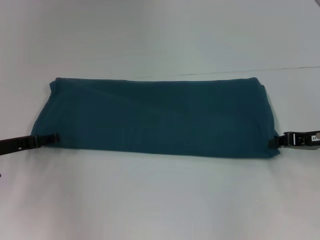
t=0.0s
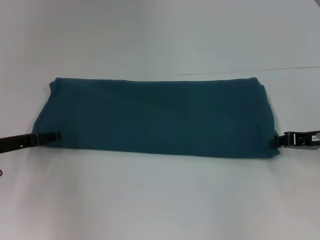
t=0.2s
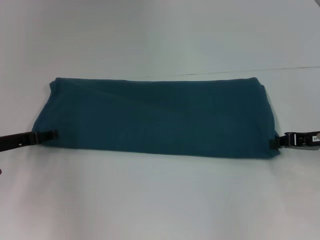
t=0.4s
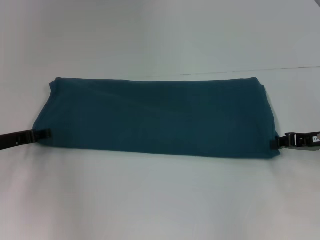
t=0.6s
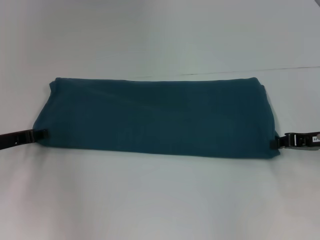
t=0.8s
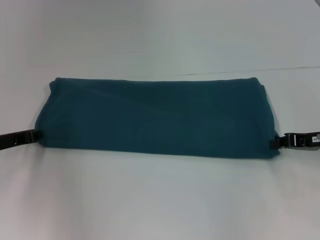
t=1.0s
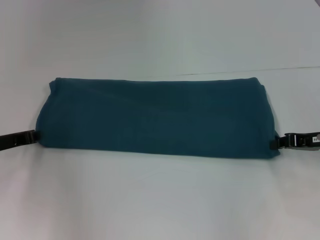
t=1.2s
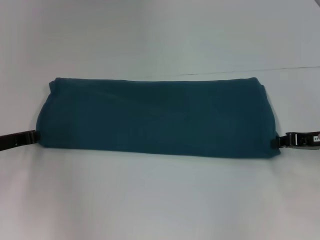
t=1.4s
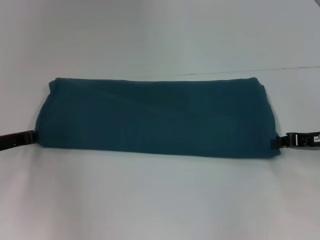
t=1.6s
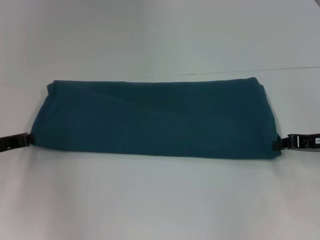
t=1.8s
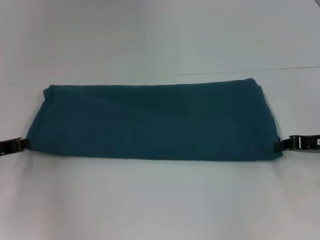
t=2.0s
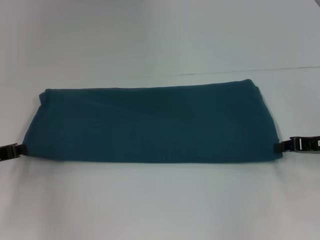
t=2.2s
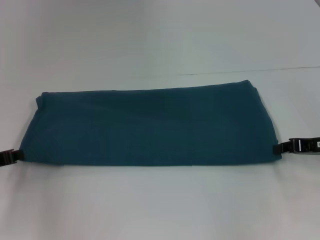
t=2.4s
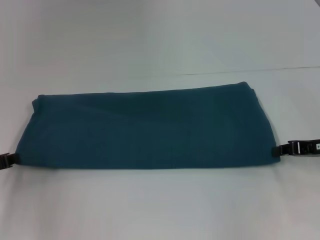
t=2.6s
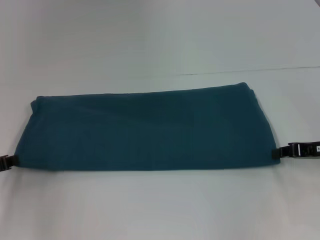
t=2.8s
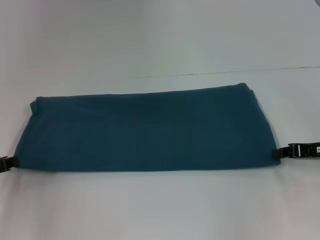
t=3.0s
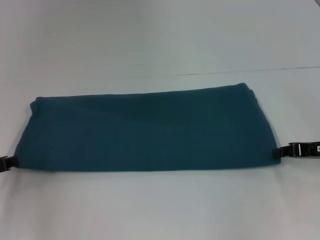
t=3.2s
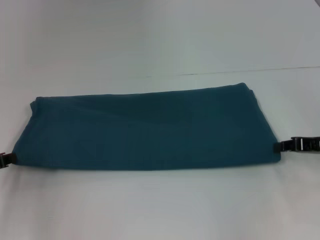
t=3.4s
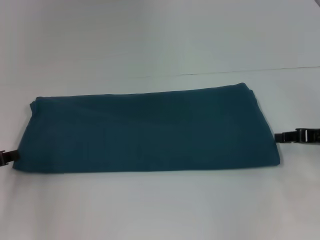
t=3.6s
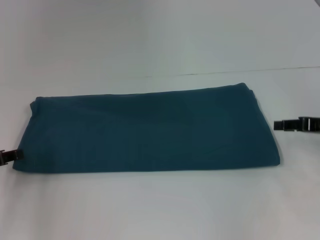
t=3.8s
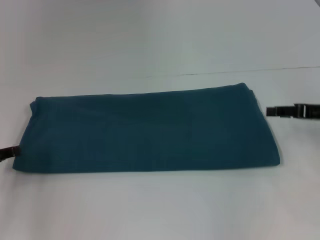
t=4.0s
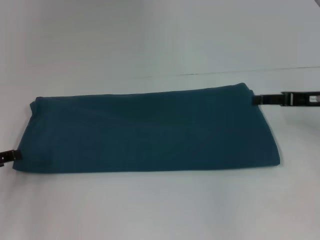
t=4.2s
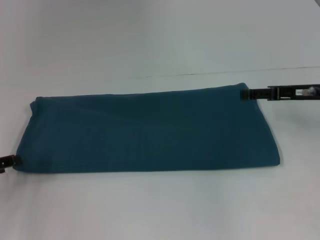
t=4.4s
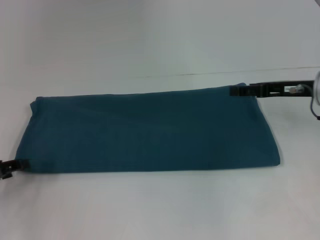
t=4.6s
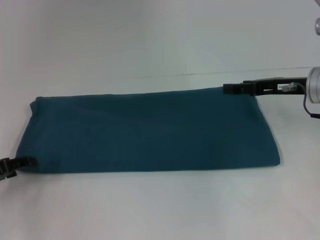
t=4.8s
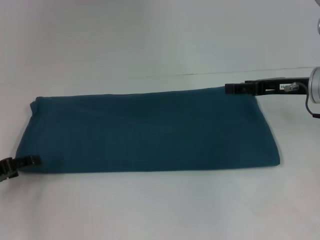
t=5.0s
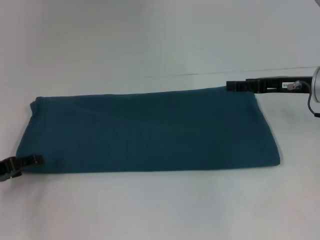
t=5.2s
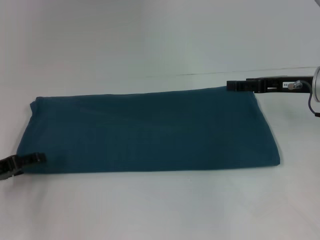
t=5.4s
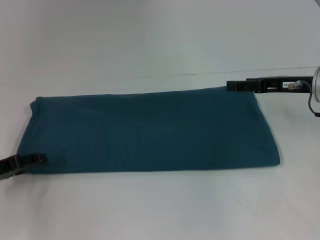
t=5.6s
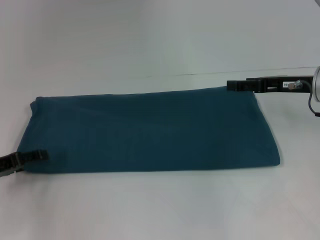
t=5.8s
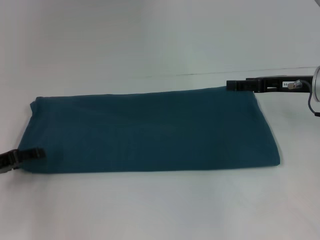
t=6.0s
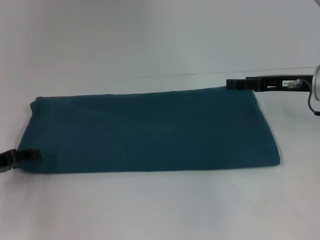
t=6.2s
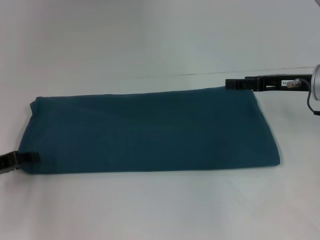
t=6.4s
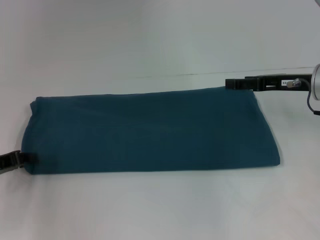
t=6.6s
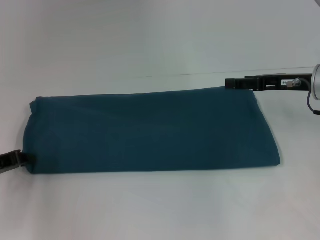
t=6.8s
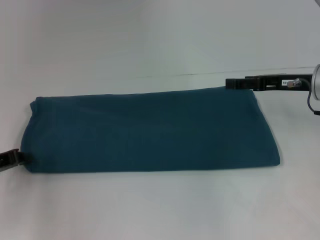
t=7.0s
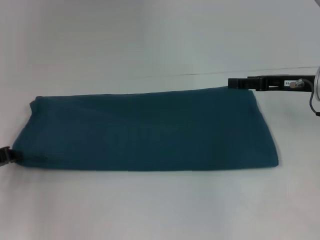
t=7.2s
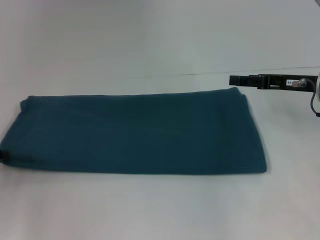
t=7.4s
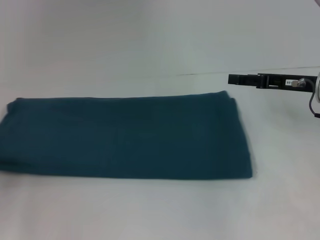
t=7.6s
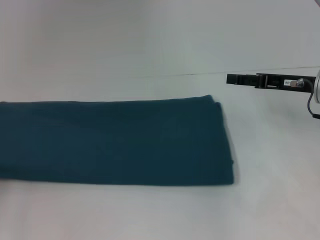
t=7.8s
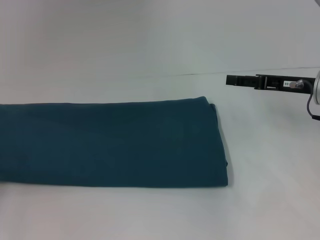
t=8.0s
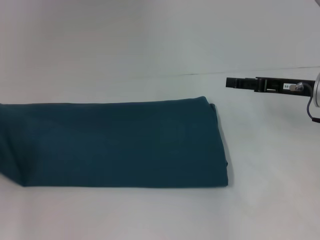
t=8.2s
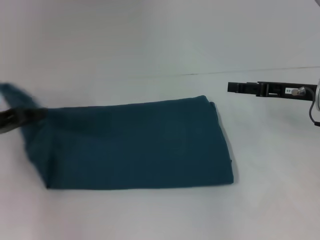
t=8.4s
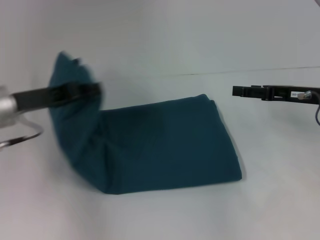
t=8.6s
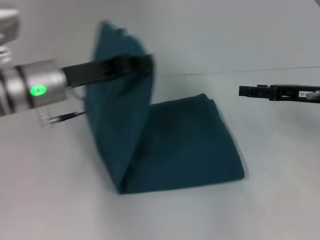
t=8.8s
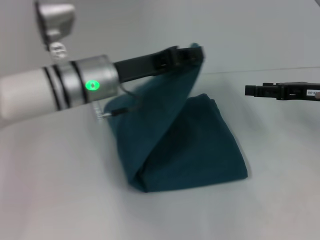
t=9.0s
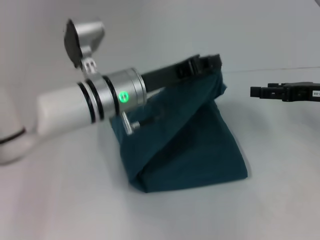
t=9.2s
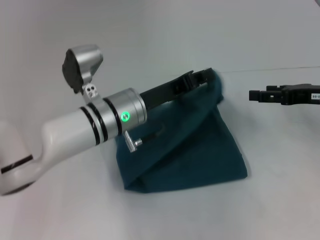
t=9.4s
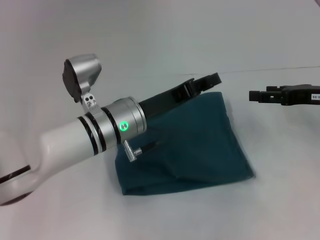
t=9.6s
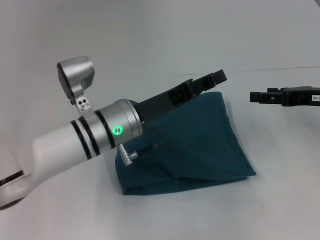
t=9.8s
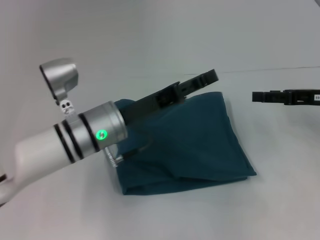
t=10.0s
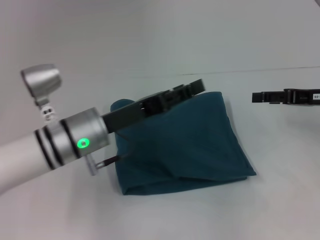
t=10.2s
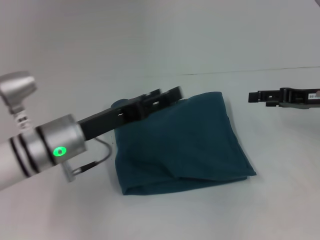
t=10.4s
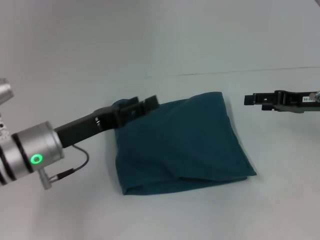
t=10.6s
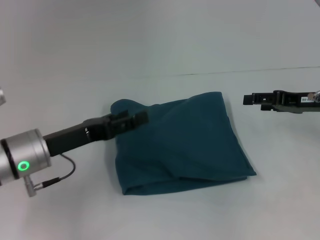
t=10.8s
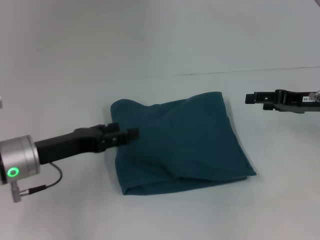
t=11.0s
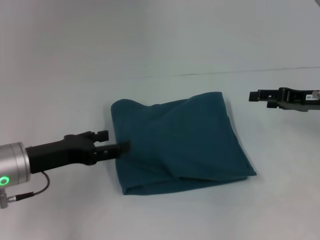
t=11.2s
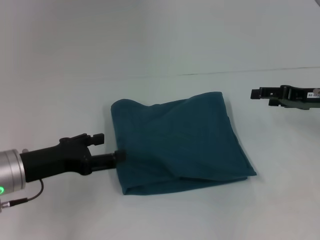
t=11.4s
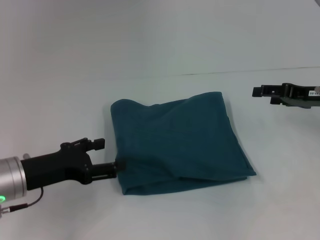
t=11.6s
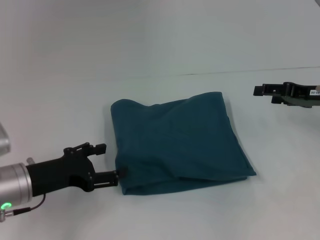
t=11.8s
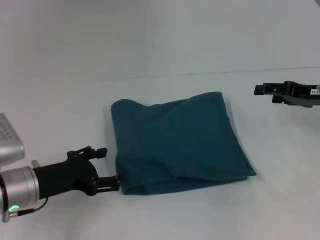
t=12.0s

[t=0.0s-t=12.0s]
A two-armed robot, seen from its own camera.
Step, t=0.0s to t=9.6s: Fold the clothes to the left.
t=0.0s to t=1.6s: The left gripper closes.
t=1.6s to t=3.0s: The left gripper heads backward, covering approximately 5 cm.
t=3.0s to t=4.4s: The right gripper goes roughly 10 cm upward and forward, and opens up.
t=4.4s to t=6.0s: The grippers move only a little.
t=6.0s to t=7.6s: The left gripper moves to the left, roughly 5 cm, and closes.
t=7.6s to t=9.0s: The left gripper heads to the right, covering roughly 25 cm.
t=9.0s to t=10.4s: The left gripper travels downward and backward by about 10 cm, and opens.
t=10.4s to t=12.0s: The left gripper goes roughly 5 cm to the left.

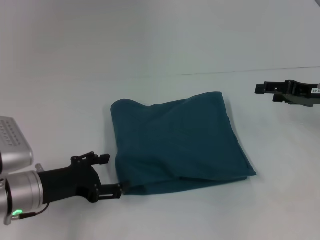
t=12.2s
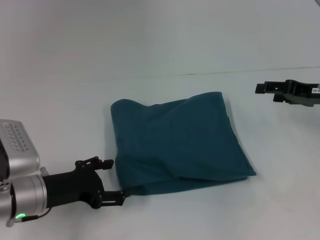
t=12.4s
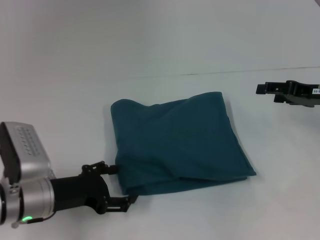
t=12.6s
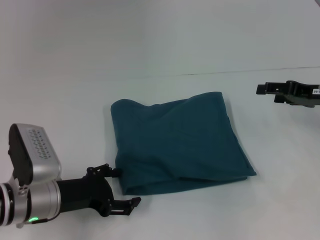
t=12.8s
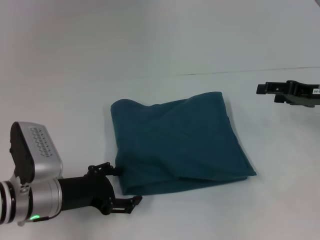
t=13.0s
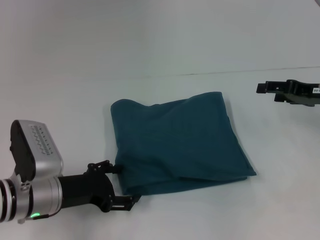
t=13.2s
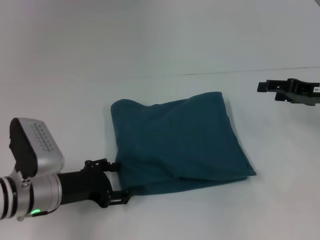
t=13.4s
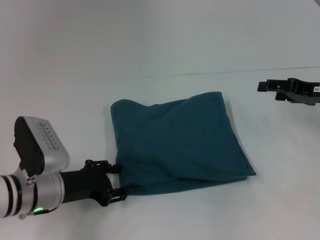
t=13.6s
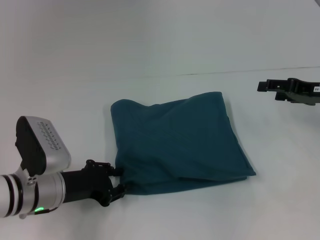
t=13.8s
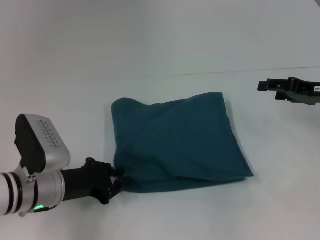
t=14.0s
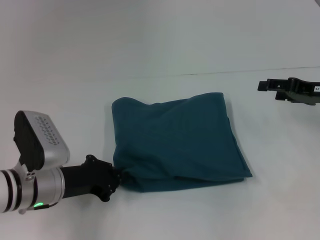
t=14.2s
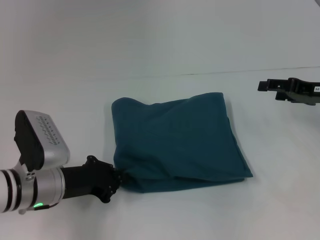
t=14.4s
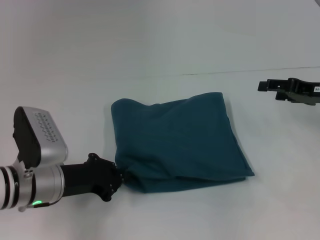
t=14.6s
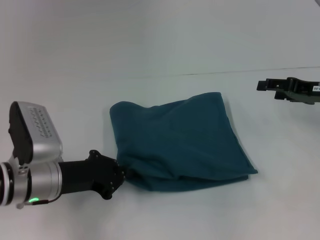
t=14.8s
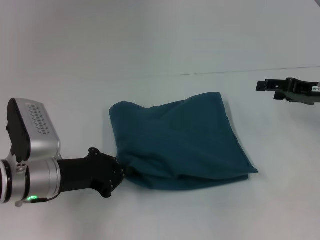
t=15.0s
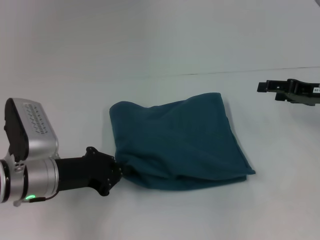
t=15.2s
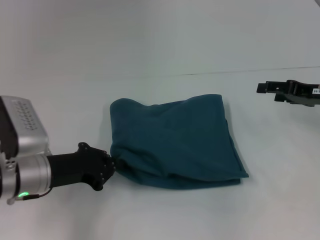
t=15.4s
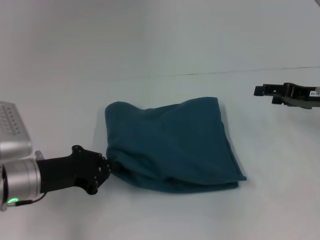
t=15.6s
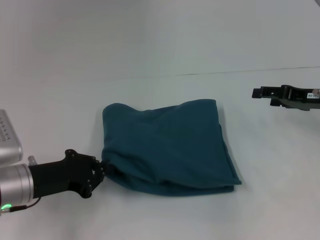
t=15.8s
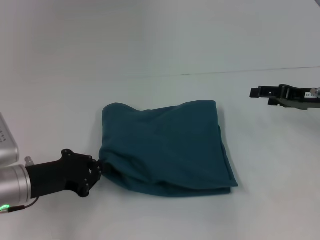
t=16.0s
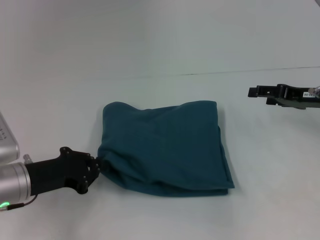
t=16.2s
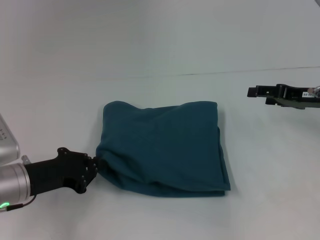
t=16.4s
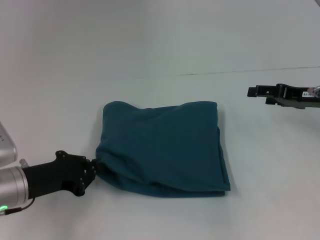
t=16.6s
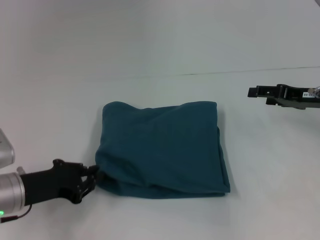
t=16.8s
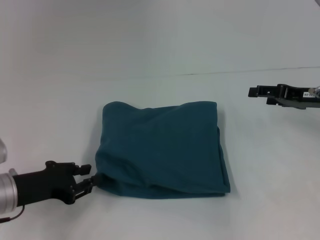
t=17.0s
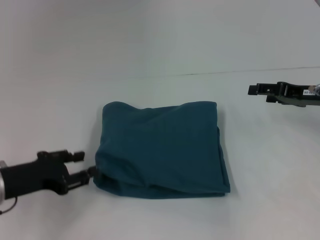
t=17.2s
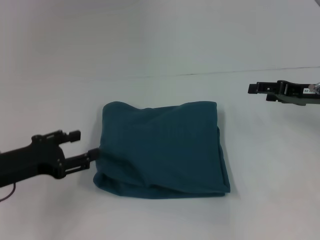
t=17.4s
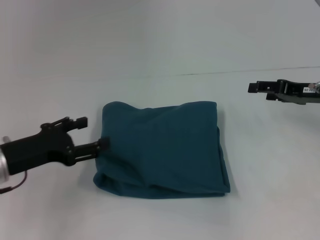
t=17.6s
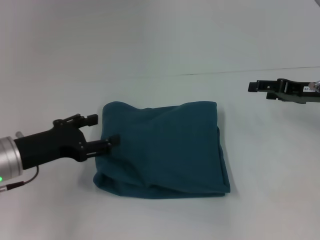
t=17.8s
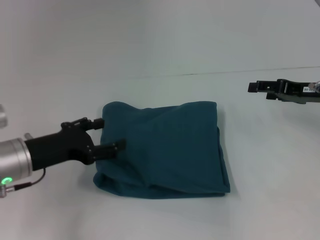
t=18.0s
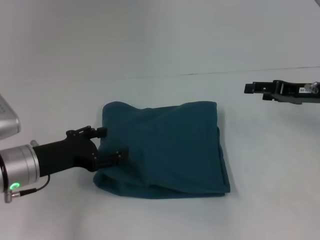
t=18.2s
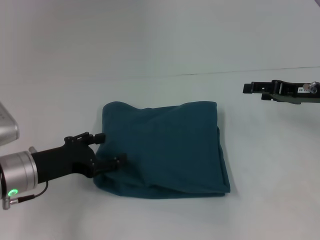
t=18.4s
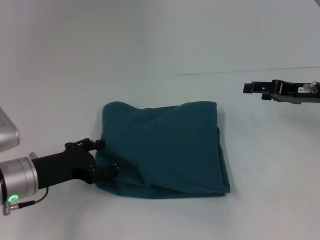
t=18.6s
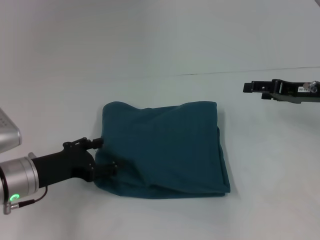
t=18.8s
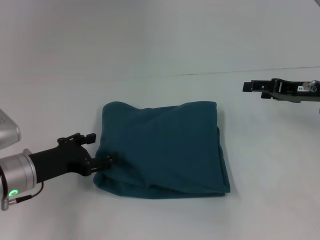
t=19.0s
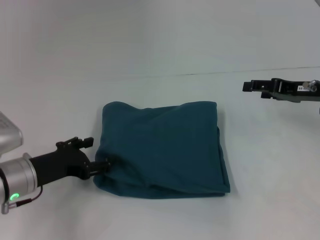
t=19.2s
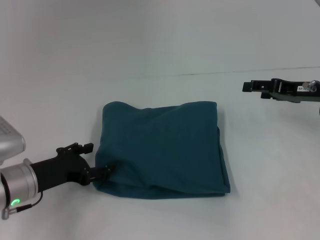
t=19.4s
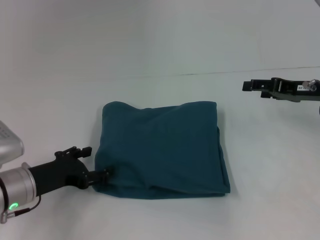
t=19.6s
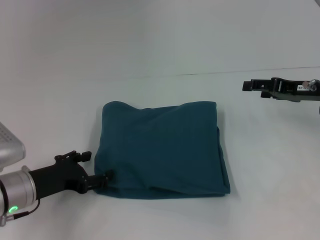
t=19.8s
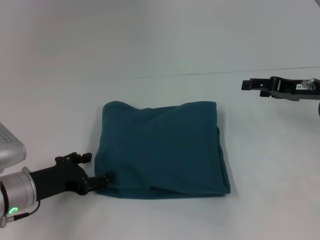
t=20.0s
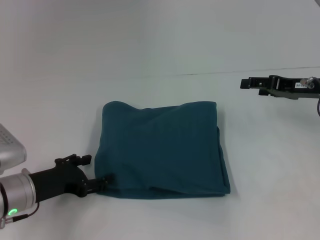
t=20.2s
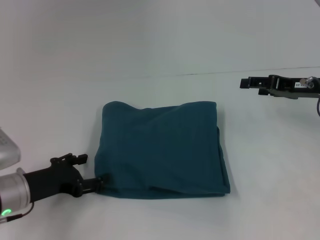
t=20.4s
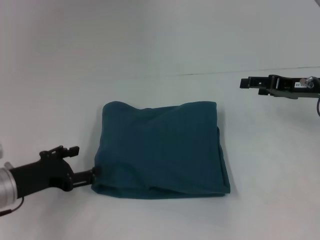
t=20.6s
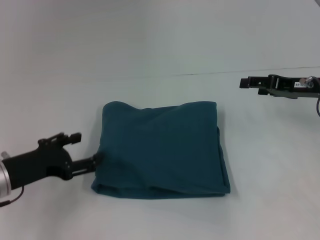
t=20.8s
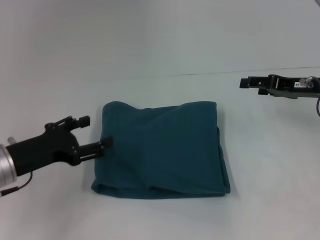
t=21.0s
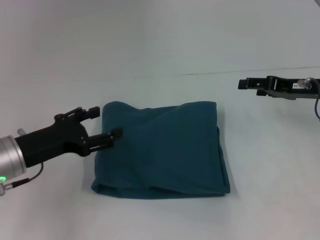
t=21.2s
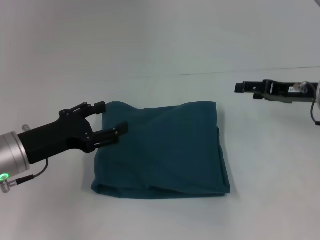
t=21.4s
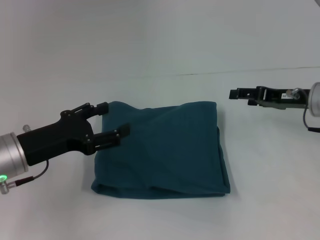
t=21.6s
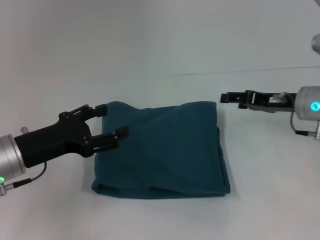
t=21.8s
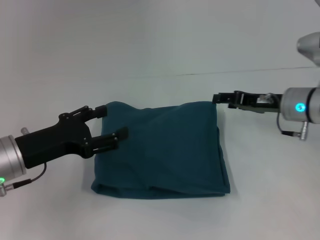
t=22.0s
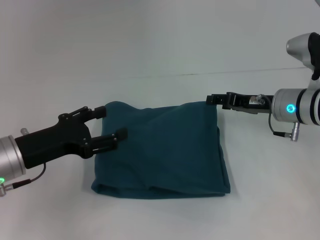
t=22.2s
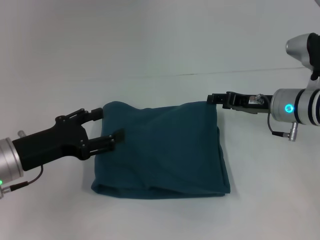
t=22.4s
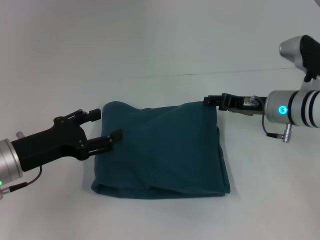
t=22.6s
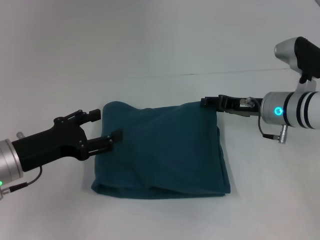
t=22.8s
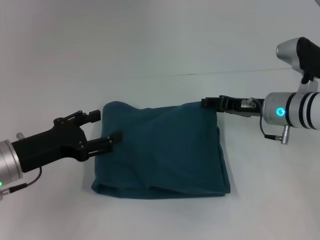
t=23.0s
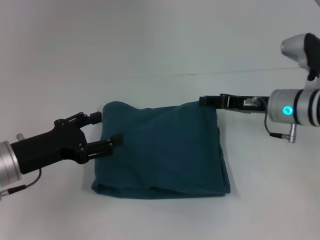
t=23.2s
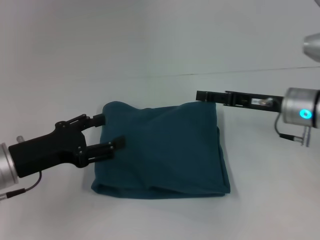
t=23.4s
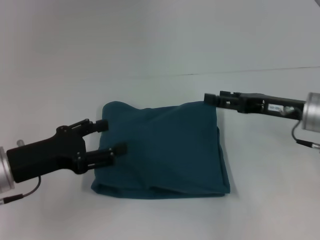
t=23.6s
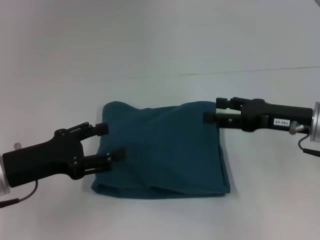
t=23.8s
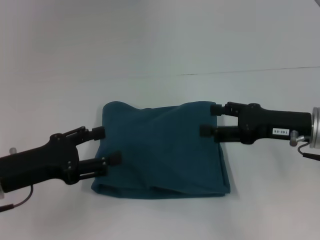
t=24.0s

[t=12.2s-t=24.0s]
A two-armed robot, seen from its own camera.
t=12.2s to t=13.6s: The grippers stay close to where they were, moving slightly.
t=13.6s to t=15.2s: The left gripper closes up.
t=15.2s to t=16.6s: There are only small adjustments of the grippers.
t=16.6s to t=18.2s: The left gripper opens up.
t=18.2s to t=21.0s: There are only small adjustments of the grippers.
t=21.0s to t=22.6s: The right gripper travels to the left by some 10 cm.
t=22.6s to t=24.0s: The right gripper heads backward, covering some 10 cm.
